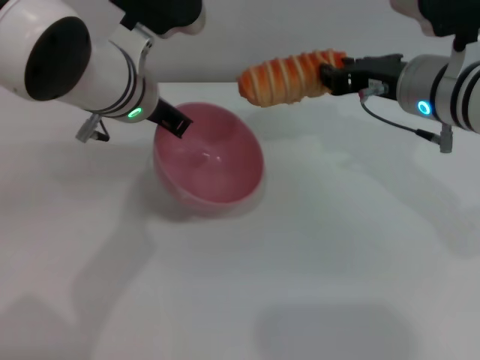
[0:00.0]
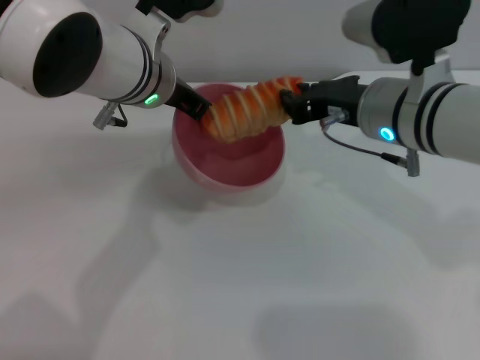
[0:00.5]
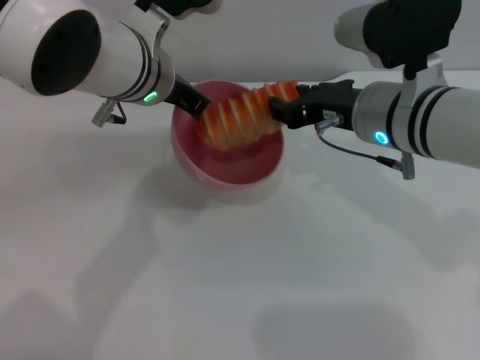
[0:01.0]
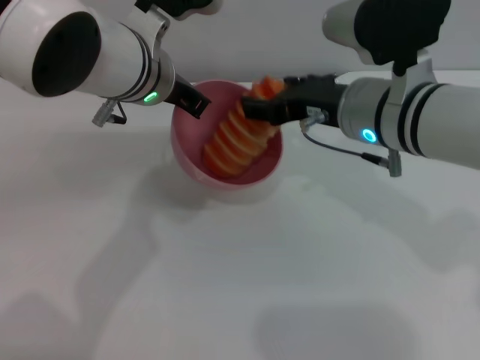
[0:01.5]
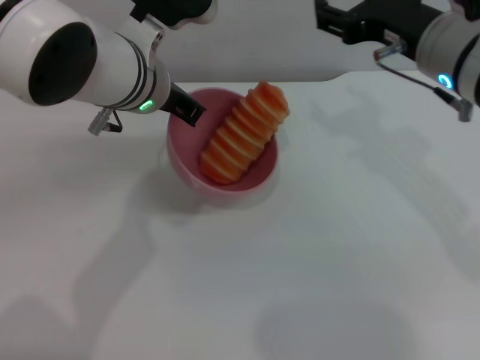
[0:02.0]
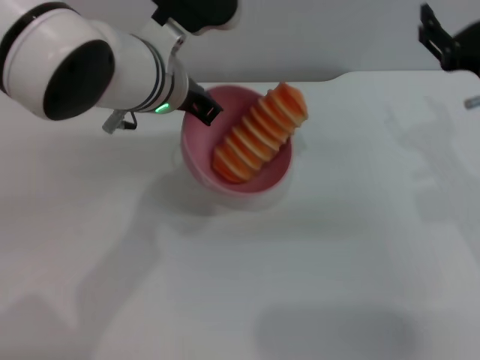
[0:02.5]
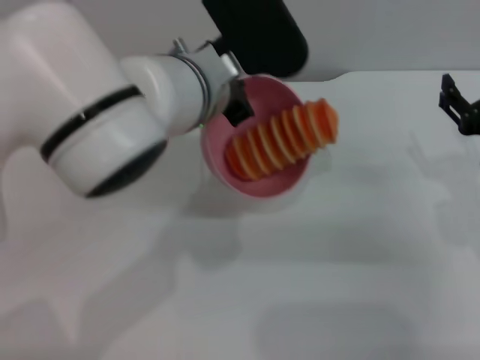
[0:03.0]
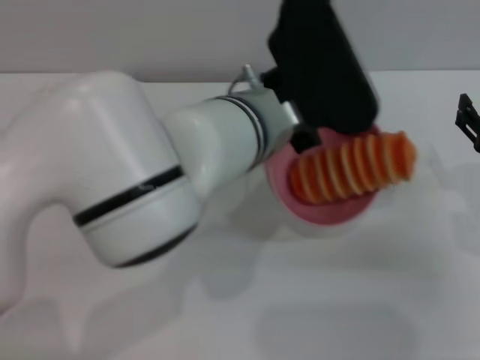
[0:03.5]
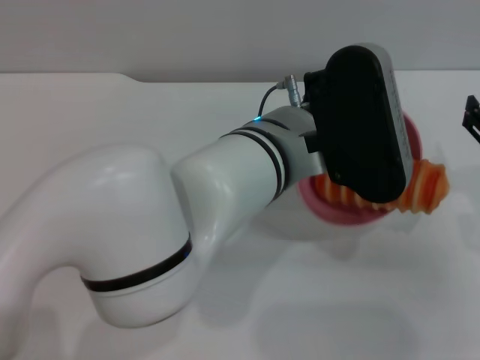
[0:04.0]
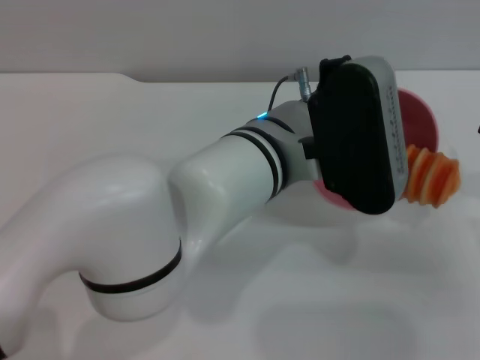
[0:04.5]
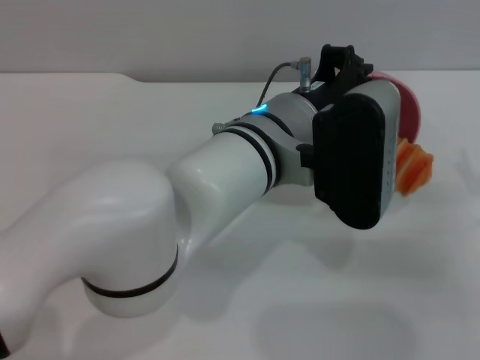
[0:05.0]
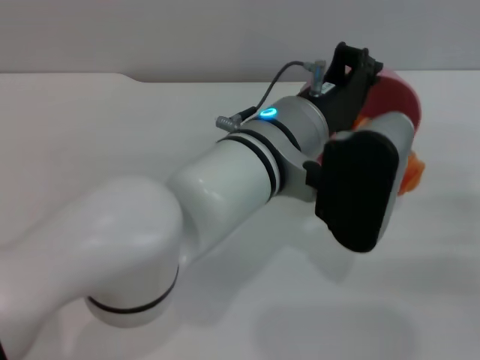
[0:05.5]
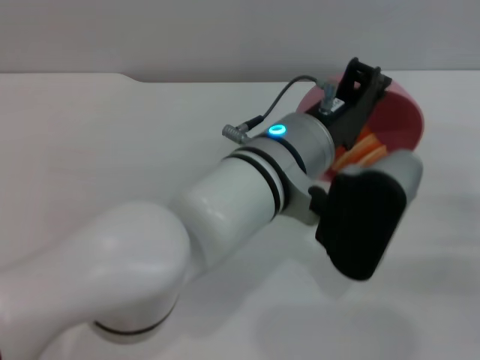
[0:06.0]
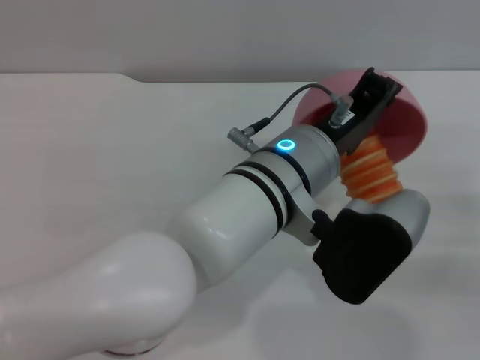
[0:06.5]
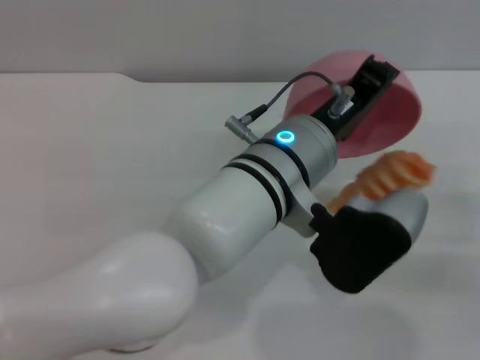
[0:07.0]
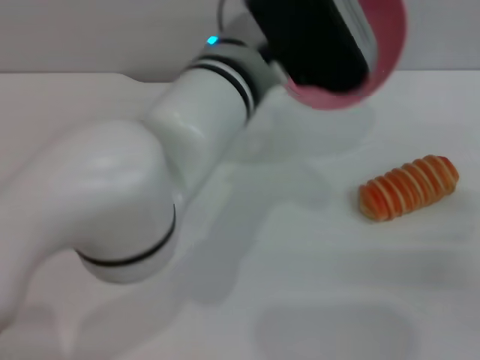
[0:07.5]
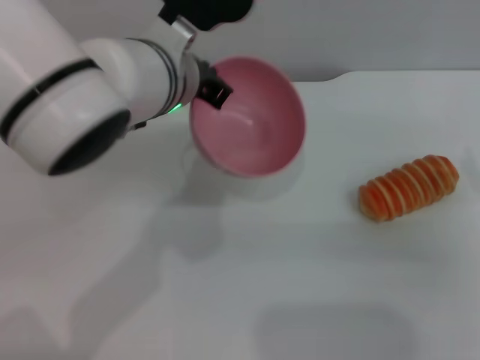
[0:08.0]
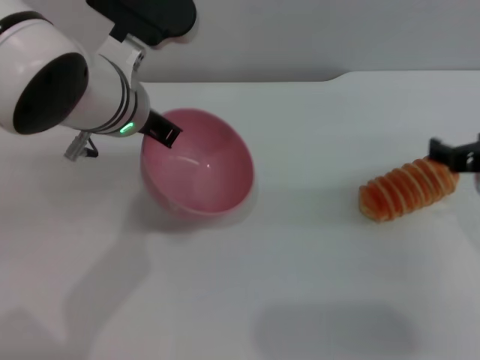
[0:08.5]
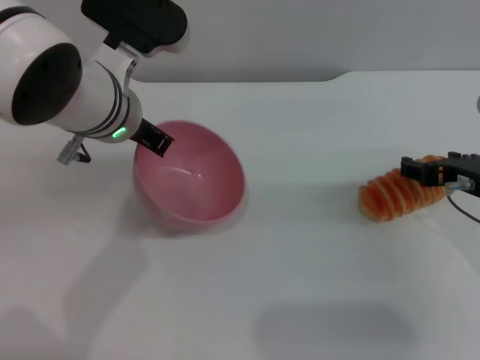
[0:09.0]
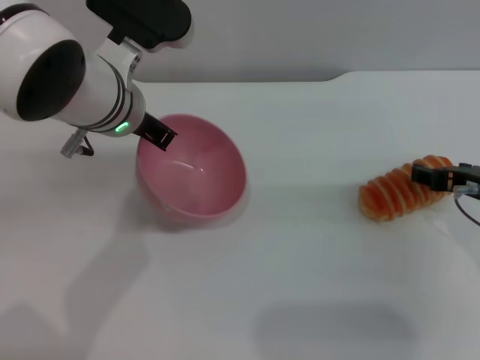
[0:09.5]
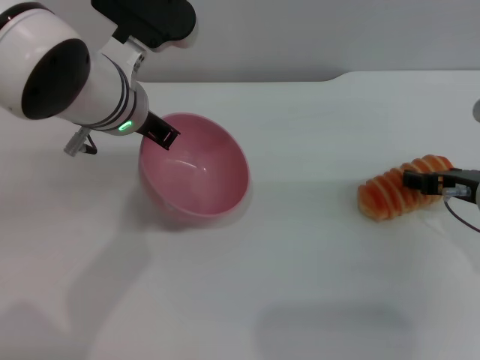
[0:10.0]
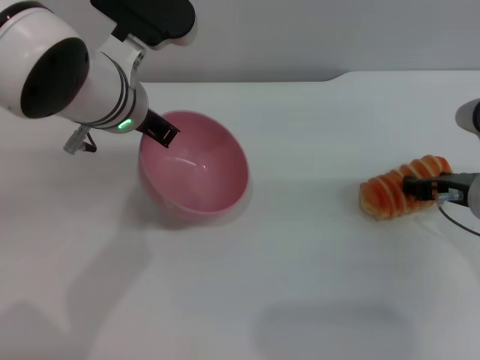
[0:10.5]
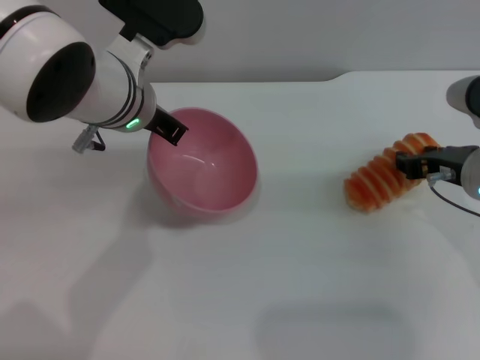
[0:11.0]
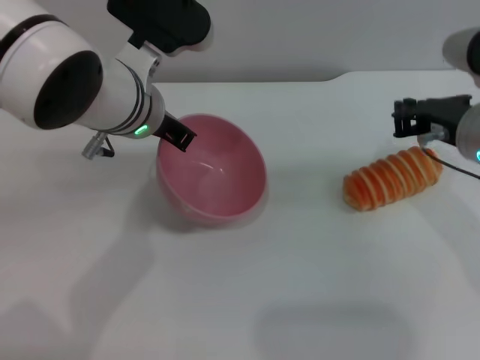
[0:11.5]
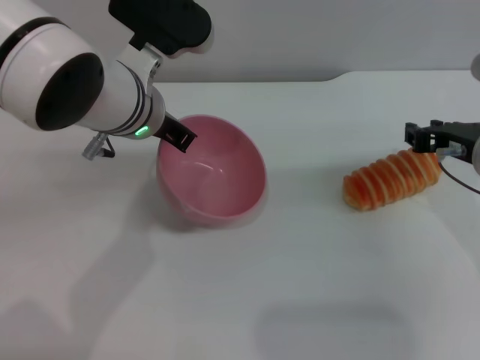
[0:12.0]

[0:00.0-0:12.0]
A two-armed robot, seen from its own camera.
Task of the whole recording: put the bread into the pink bowl and pour it out repeatedly.
Step, 0:00.0 to 0:02.5: Place the bread into the bowl.
Step, 0:03.0 to 0:07.0: Pour the bread out of the bowl.
0:00.0 to 0:02.0: The right gripper opens.
0:02.0 to 0:04.0: The left gripper travels to the right and backward by about 15 cm, while the right gripper goes approximately 20 cm downward, to the right and backward.
0:04.0 to 0:06.0: The right gripper is displaced to the right by some 5 cm.
0:06.0 to 0:08.0: The left gripper moves to the left, forward and upward, some 10 cm; the right gripper shifts by approximately 5 cm.
0:08.0 to 0:10.0: The left gripper is displaced to the left by about 5 cm; the right gripper heads to the left and forward, covering about 10 cm.
0:10.0 to 0:12.0: The right gripper closes its fingers.

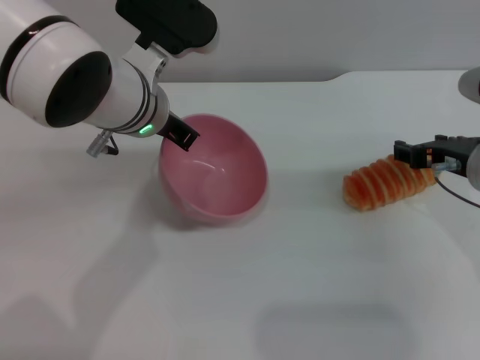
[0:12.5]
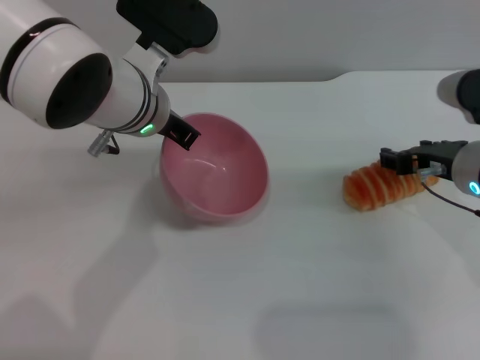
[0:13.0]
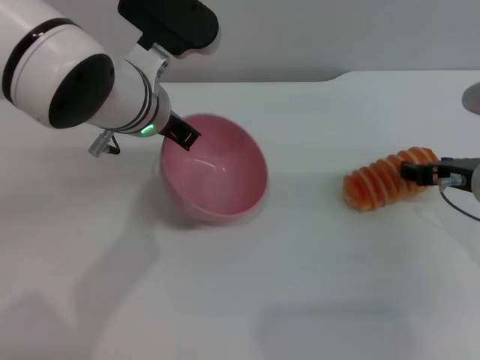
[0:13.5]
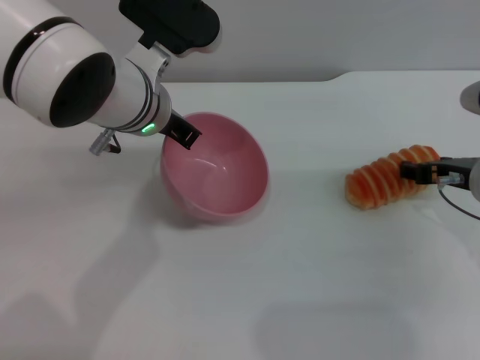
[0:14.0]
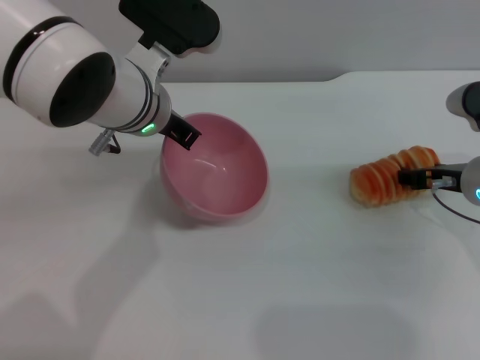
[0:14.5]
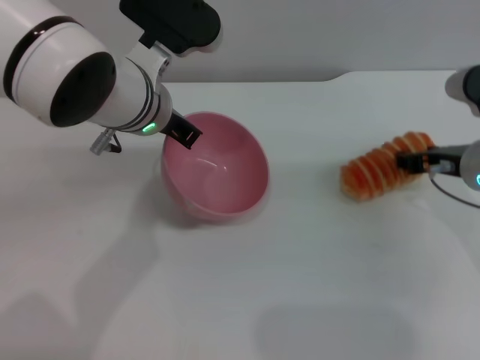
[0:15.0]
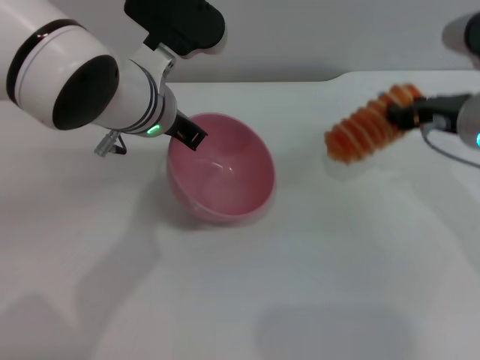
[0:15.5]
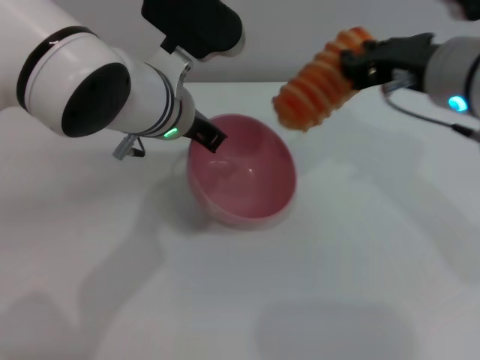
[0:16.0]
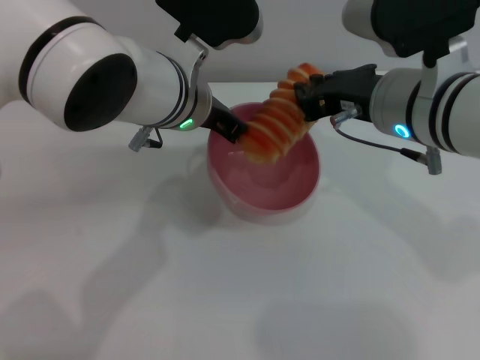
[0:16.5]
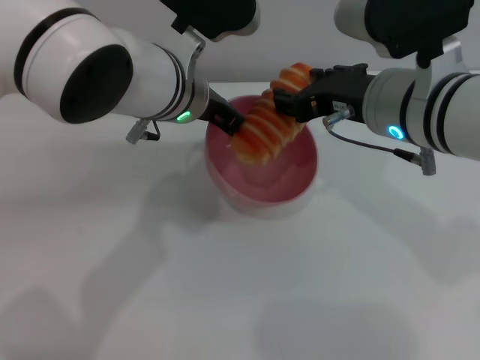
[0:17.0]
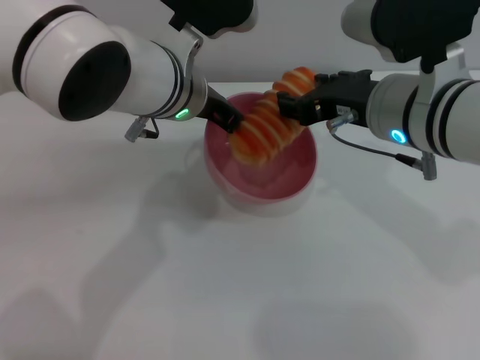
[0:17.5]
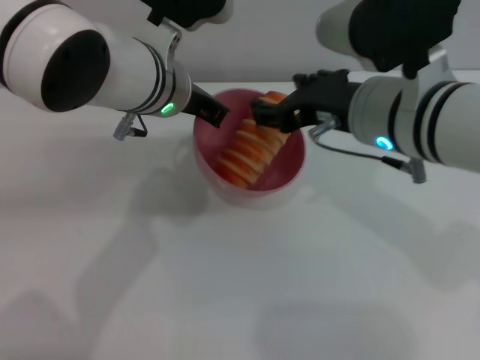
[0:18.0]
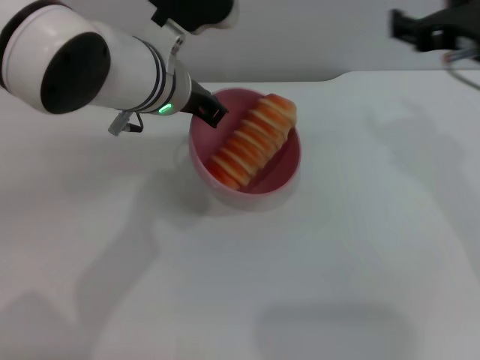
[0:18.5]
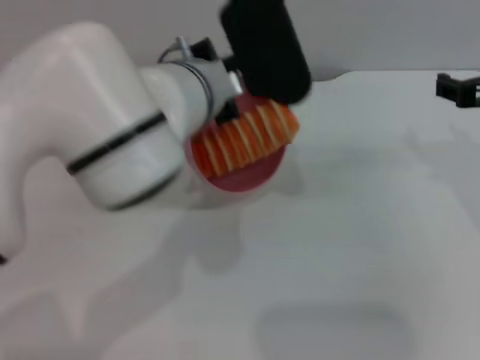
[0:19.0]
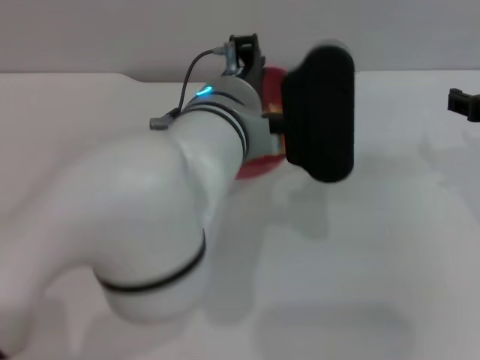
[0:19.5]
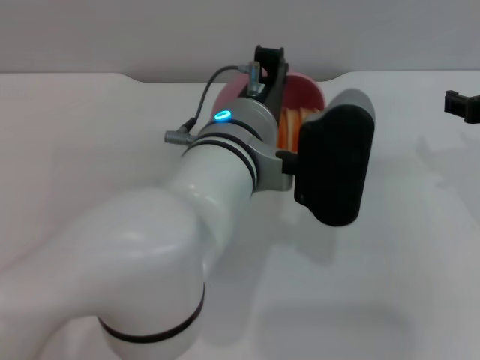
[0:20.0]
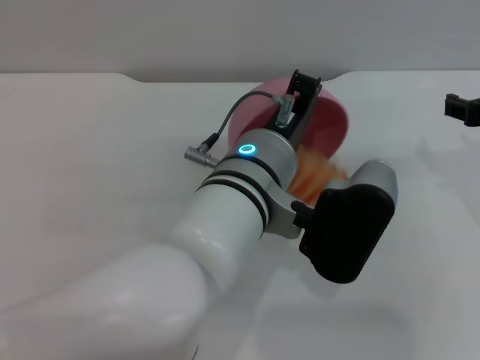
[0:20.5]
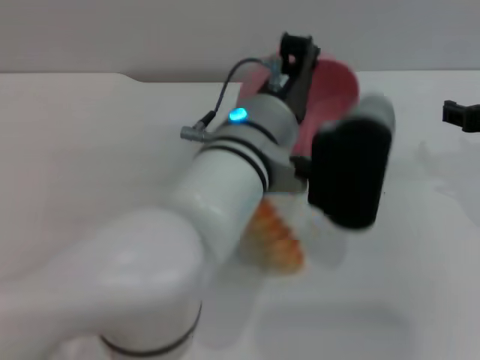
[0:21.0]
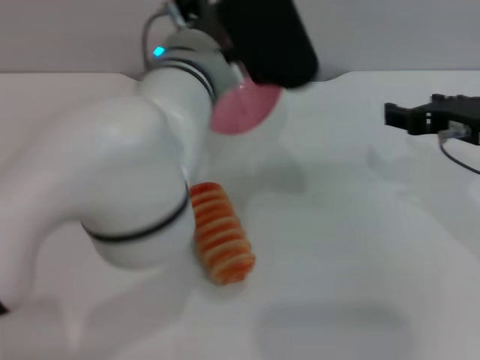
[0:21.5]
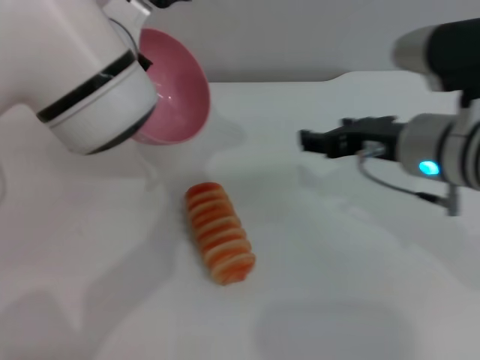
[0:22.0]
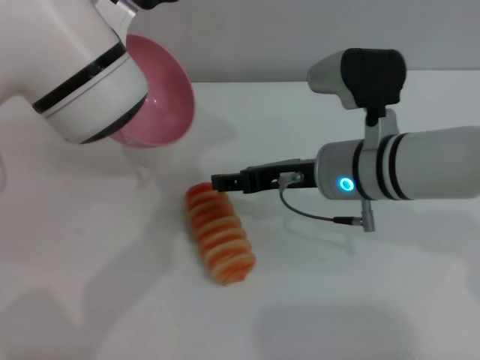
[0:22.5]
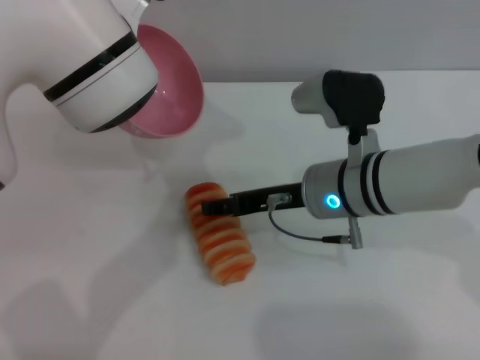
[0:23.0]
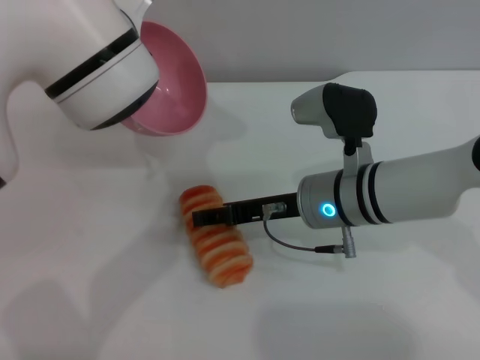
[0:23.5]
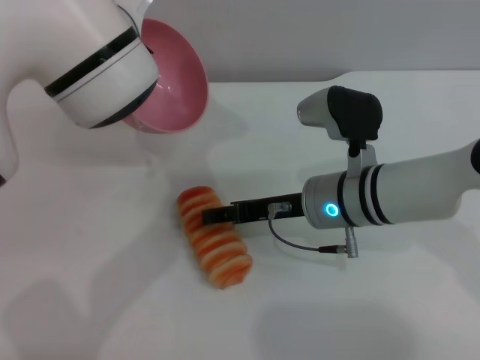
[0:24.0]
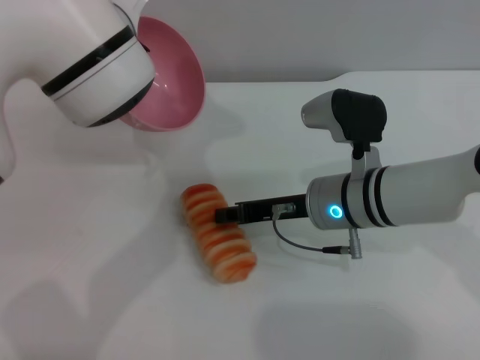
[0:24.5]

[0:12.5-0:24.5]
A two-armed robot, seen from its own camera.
Task of the whole recording: put the bread into the pink bowl and pour it out repeatedly.
Step, 0:12.5 to 0:15.5: Pick up the bread with the right gripper.
Step, 0:16.0 to 0:18.0: Place the bread into the bowl.
Step, 0:18.5 to 0:21.5: Pour the bread out of the bowl.
0:12.5 to 0:14.5: The grippers make only small movements.
0:14.5 to 0:16.5: The right gripper moves upward and to the left, about 15 cm, and closes.
0:16.5 to 0:18.5: The right gripper travels to the right by about 10 cm, and opens up.
0:18.5 to 0:20.5: The right gripper travels downward and to the right by roughly 10 cm. The left gripper shifts about 15 cm backward and to the right.
0:20.5 to 0:22.5: The left gripper heads to the left, forward and upward, covering some 15 cm, while the right gripper shifts approximately 15 cm to the left.
0:22.5 to 0:24.5: The grippers stay close to where they were, moving slightly.

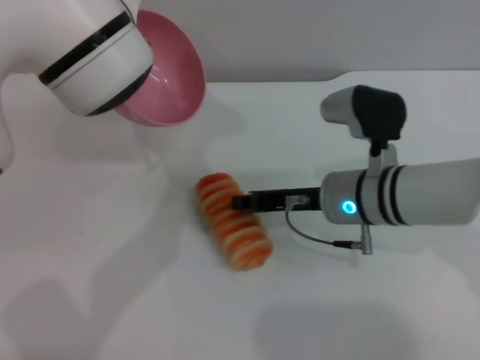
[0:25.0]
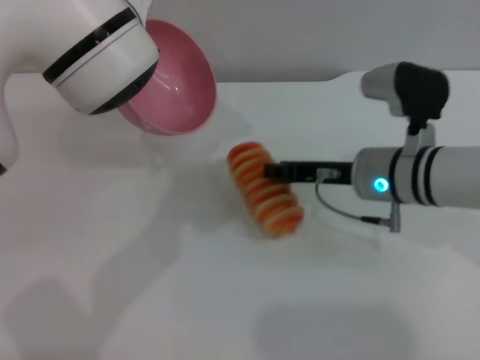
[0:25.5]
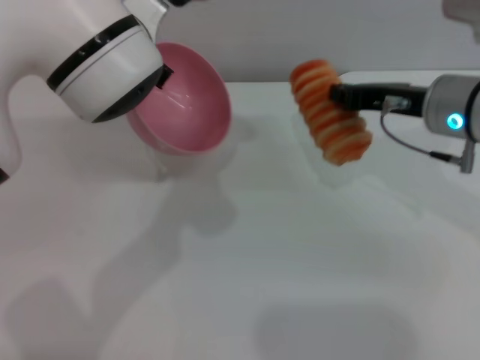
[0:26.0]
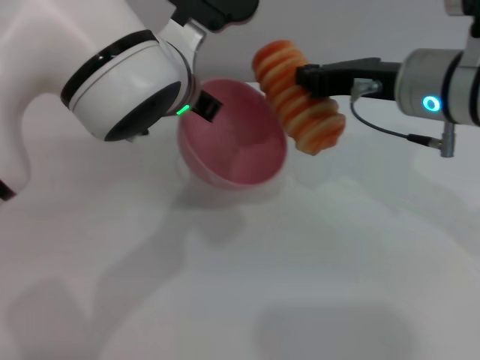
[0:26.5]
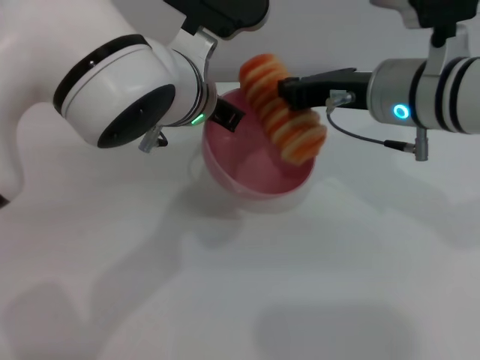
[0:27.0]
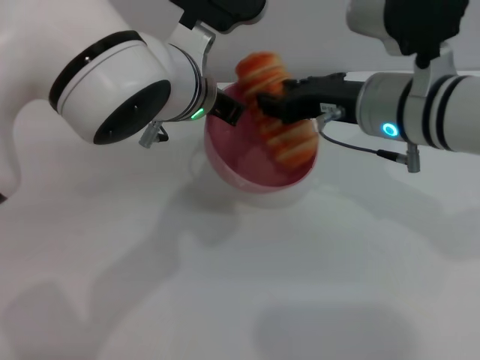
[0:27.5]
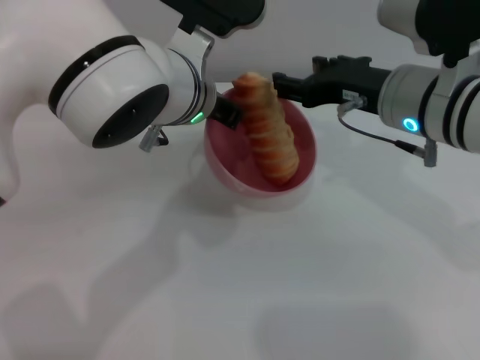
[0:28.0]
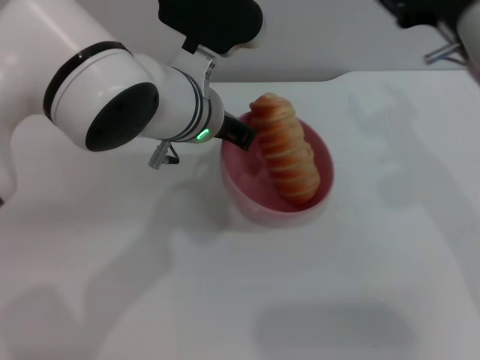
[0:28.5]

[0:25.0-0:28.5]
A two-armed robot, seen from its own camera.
Task of the whole recording: put the bread into the pink bowl and pour it out repeatedly.
0:25.0 to 0:27.0: The right gripper moves upward, some 10 cm, while the left gripper moves roughly 5 cm.
0:27.0 to 0:28.5: The right gripper is displaced to the right by about 5 cm, and opens up.
